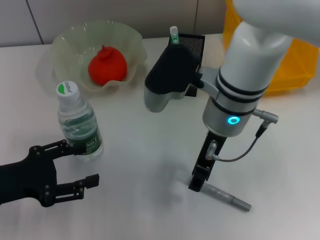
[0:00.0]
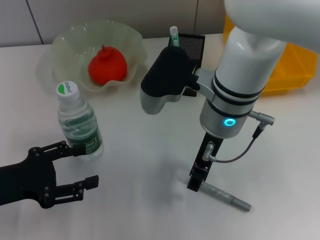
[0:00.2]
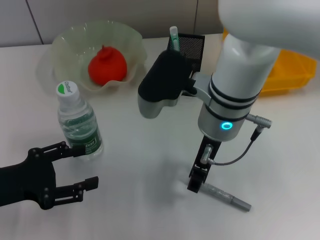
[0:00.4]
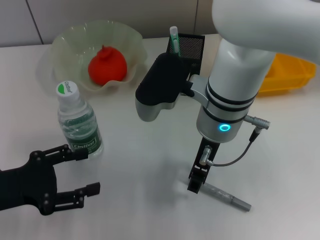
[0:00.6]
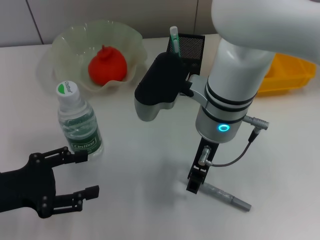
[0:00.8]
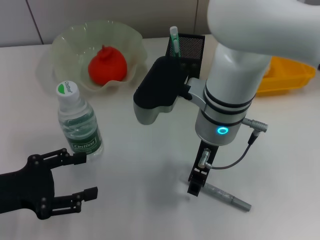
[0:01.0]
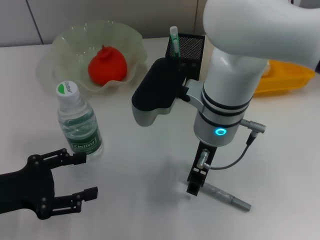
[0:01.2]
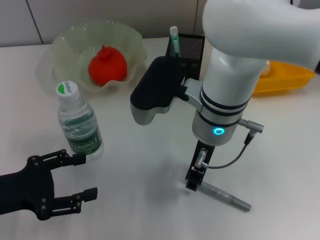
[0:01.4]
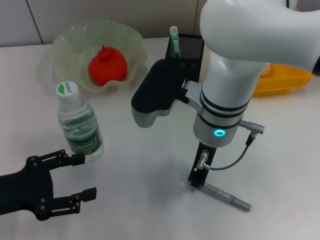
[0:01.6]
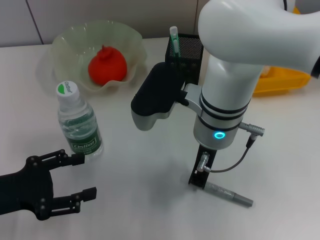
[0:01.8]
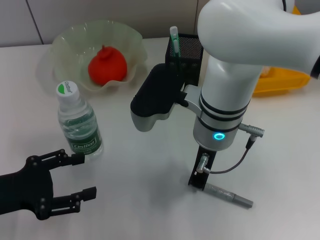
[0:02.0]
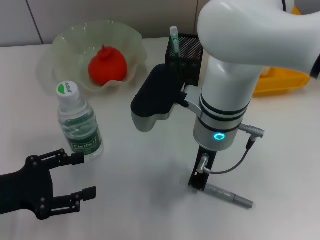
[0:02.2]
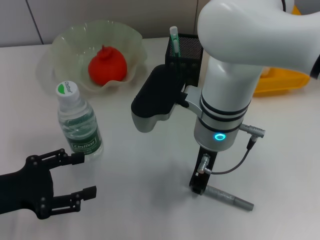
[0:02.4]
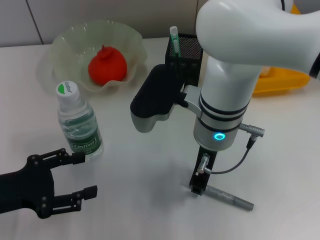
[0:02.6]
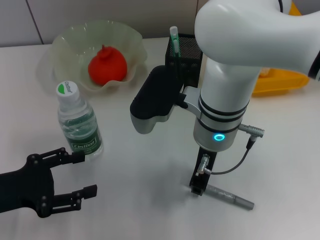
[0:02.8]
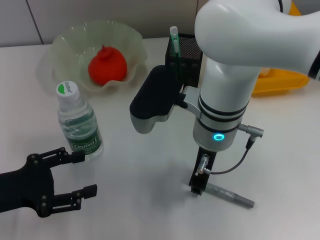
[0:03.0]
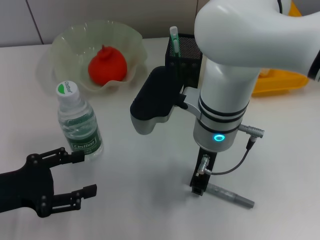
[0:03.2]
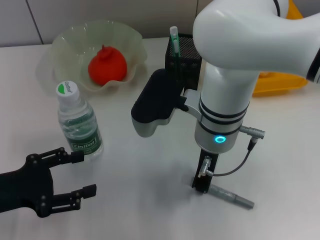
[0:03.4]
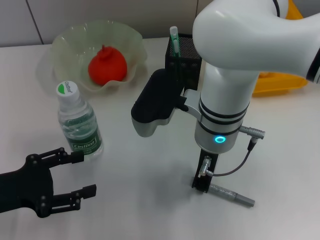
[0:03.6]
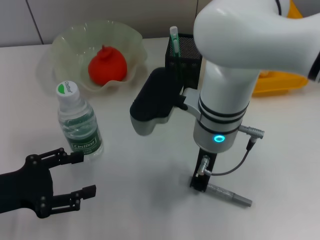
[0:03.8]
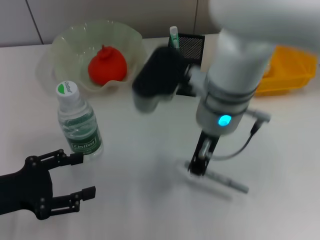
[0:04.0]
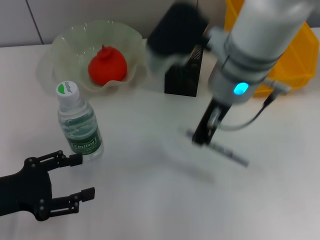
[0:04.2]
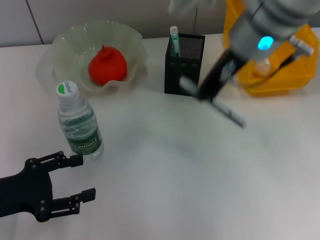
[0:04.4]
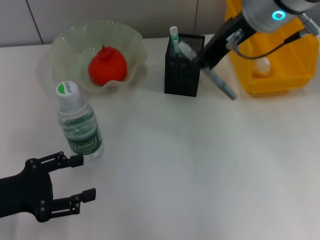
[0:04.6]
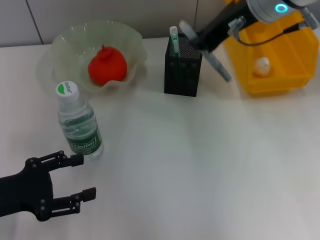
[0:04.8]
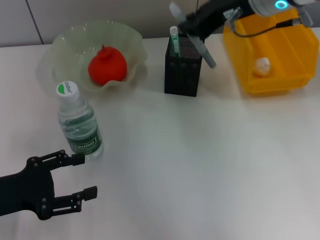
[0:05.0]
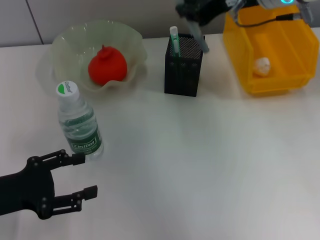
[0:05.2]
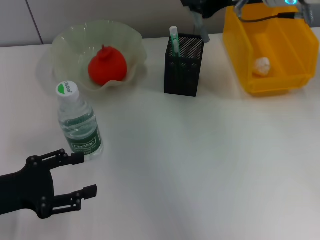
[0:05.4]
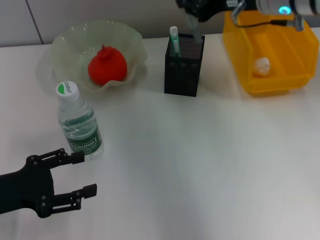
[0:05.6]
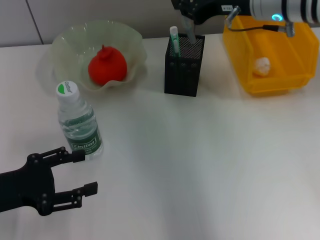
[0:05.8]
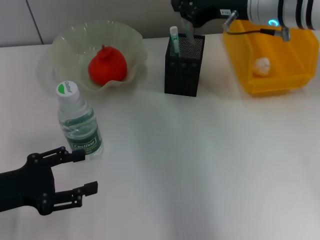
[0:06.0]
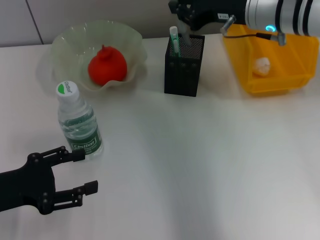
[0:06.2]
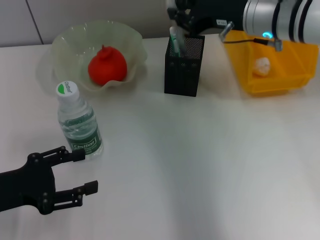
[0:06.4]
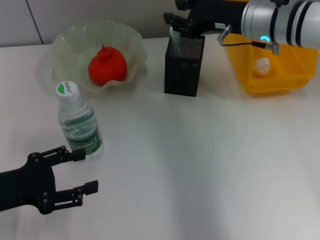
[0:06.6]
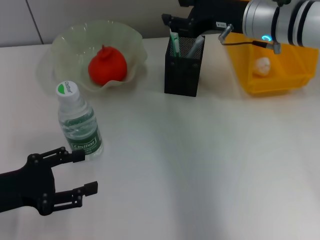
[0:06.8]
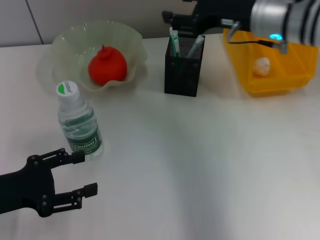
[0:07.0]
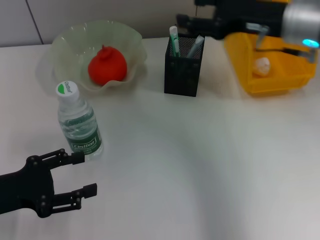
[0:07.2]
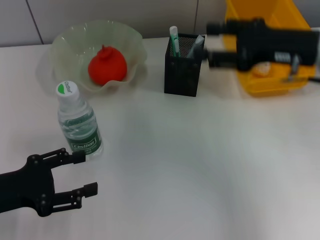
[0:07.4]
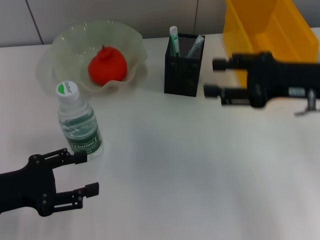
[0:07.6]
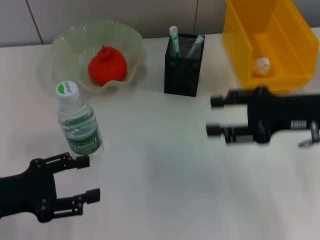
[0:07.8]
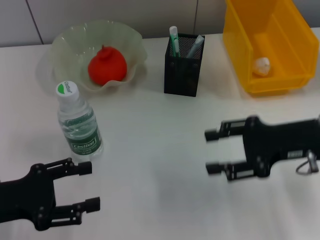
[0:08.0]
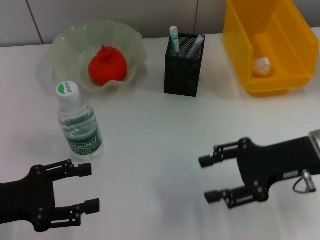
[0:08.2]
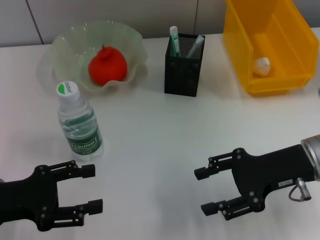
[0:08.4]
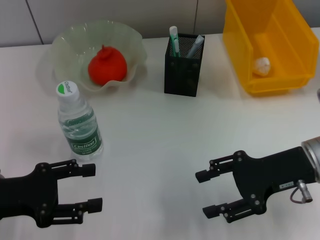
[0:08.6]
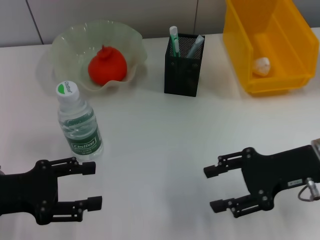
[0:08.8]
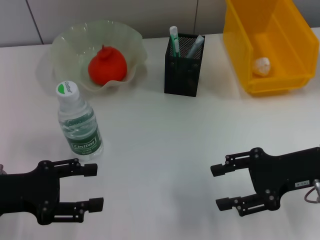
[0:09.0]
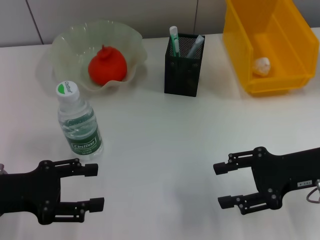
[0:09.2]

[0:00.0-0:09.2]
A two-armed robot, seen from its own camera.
Step, 0:00.0 to 0:03.4: Grab the gray glue with the right hand.
Step, 0:03.8 to 0:06.8: Place the gray glue into the pen holder with the right hand.
0:01.6 to 0:03.0: Neither gripper changes place.
0:03.0 to 0:04.6: The right gripper goes about 15 cm upward, to the right and forward.
0:04.6 to 0:06.2: The right gripper goes some 10 cm downward.
0:06.2 to 0:07.6: The right gripper is displaced backward and to the right by approximately 15 cm, and opens.
0:07.6 to 0:09.2: The right gripper travels downward by roughly 5 cm.

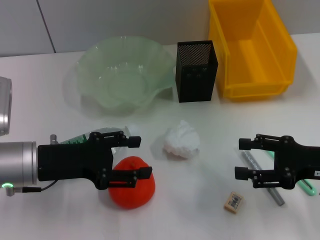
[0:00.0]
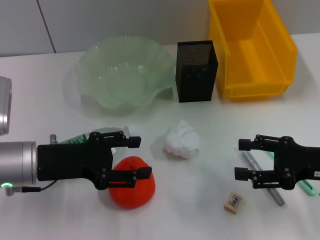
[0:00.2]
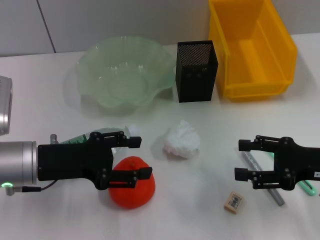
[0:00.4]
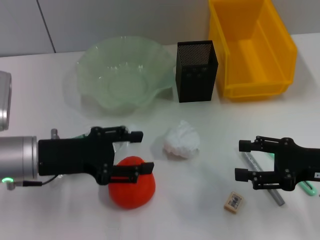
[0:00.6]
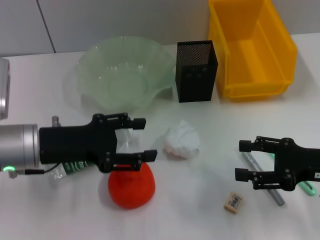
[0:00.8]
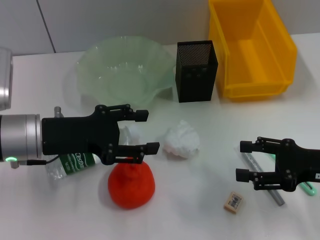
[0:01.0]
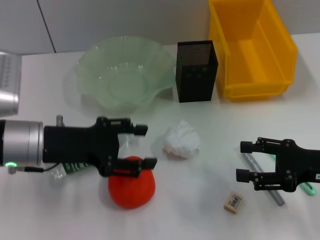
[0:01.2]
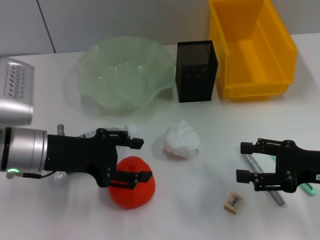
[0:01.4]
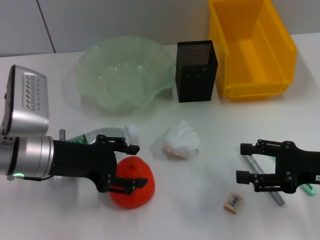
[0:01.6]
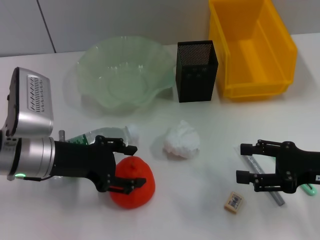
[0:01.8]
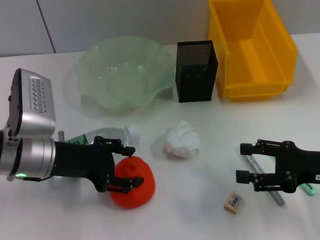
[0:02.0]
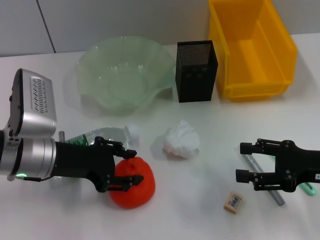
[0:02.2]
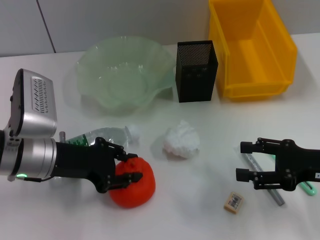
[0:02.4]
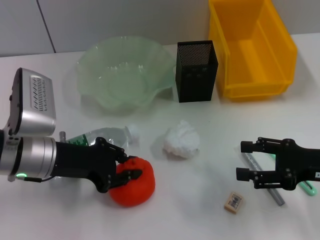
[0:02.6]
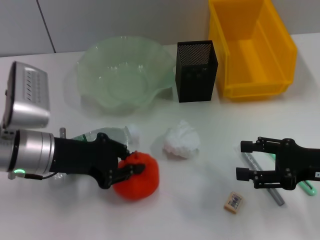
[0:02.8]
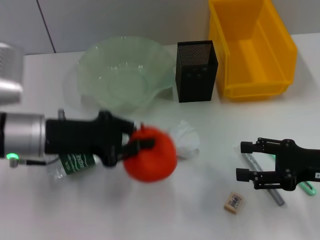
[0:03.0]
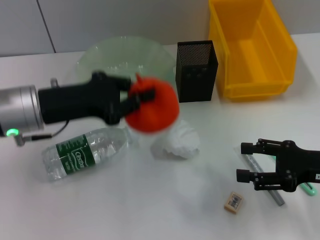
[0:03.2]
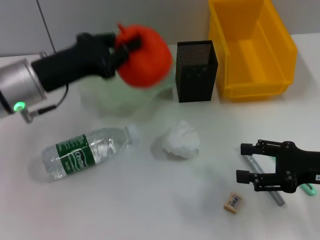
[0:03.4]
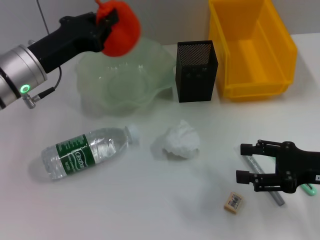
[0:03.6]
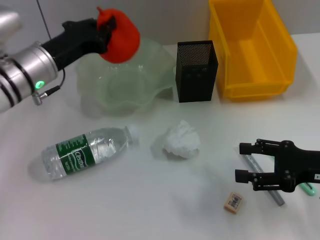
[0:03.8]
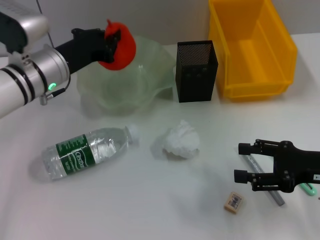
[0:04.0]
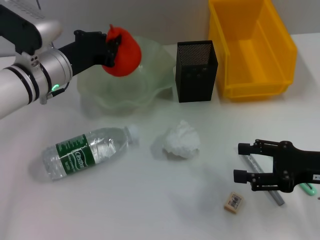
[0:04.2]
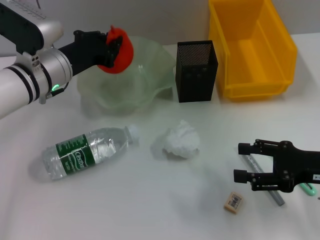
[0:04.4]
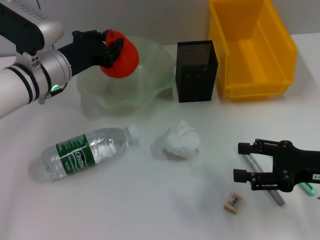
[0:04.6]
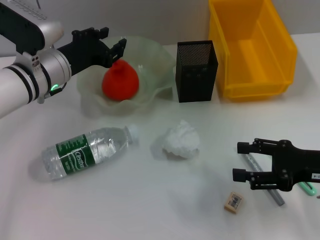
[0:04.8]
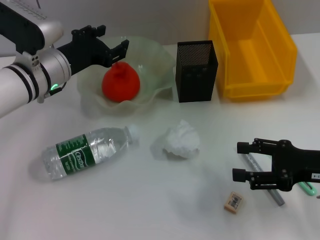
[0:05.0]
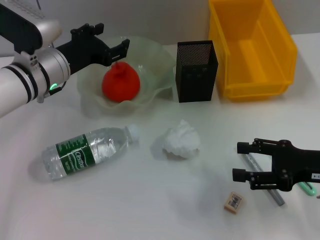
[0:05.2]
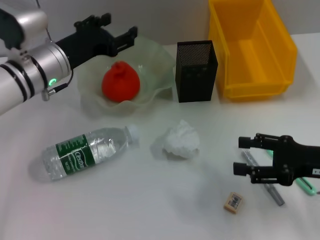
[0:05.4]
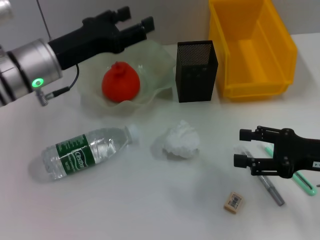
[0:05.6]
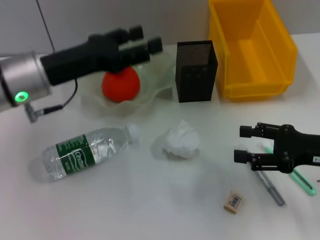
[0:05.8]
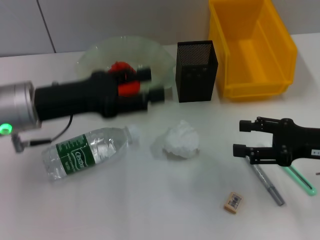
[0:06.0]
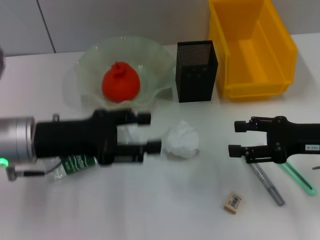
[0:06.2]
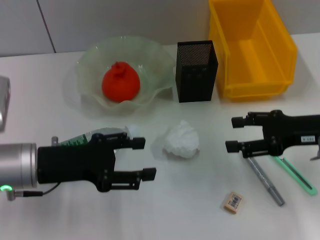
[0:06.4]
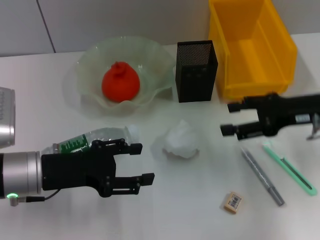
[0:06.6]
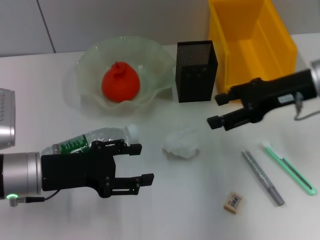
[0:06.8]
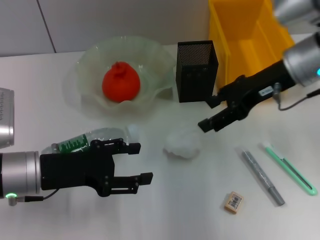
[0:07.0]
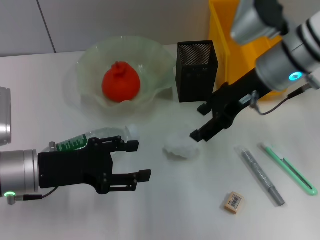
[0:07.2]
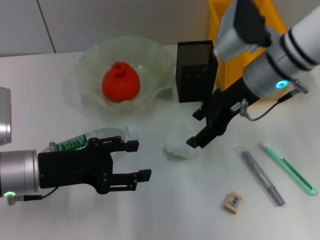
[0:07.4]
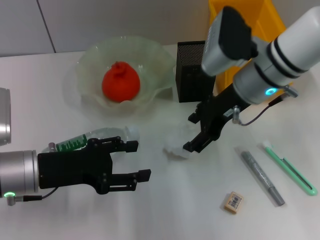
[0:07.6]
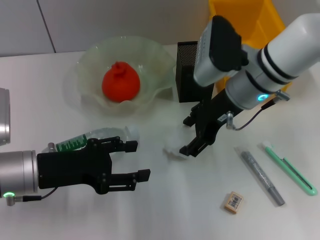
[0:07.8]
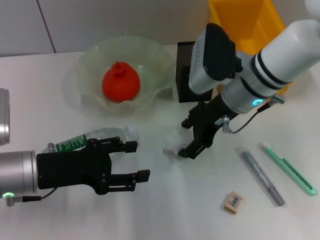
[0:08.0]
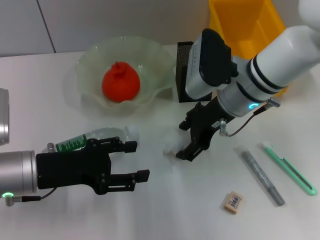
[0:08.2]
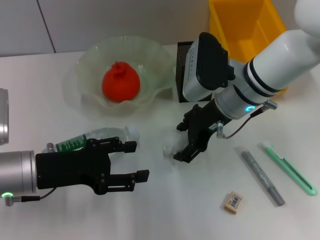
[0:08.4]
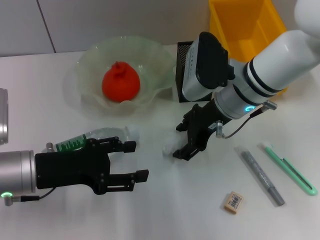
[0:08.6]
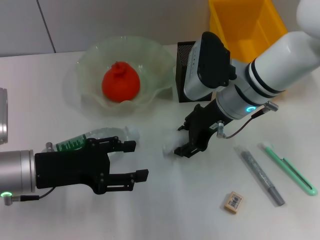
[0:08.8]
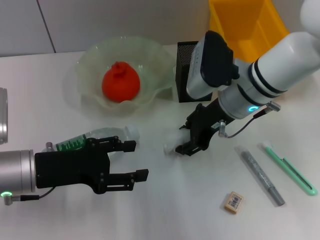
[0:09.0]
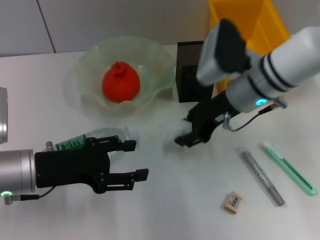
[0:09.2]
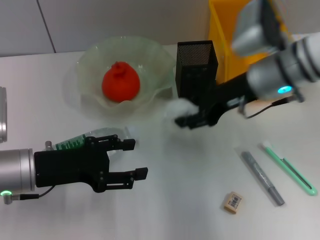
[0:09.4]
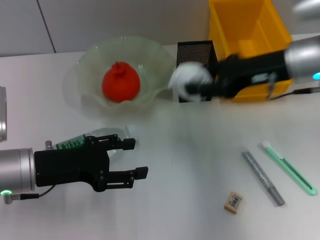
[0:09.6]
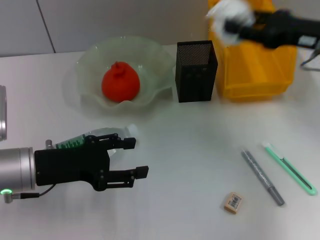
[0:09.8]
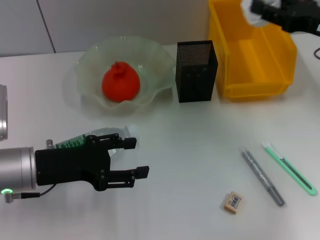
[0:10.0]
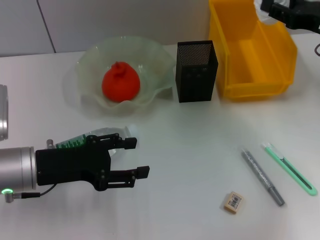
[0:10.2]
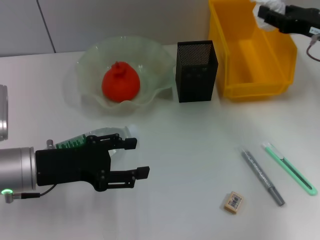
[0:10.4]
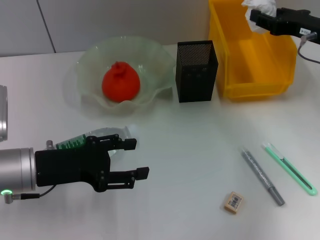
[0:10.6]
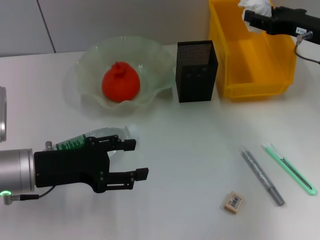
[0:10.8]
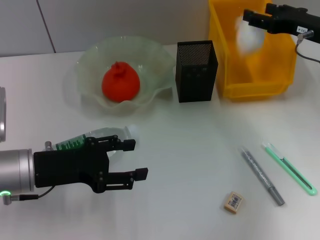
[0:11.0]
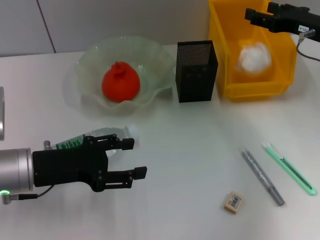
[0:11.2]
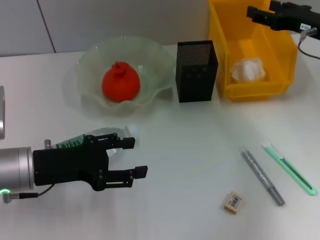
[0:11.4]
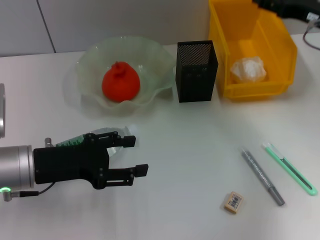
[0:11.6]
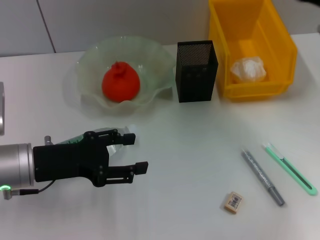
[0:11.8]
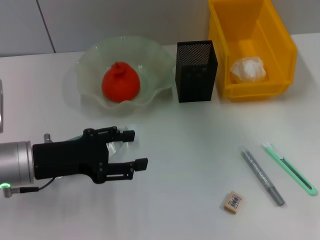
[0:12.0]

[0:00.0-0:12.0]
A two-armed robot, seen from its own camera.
Step, 0:00.0 to 0:02.4: Grab the orange with the left hand.
Step, 0:02.6 to 0:04.8: Place the orange into the fruit bowl with the left hand.
Step, 0:05.0 to 0:08.8: Grab the paper ball with the right hand.
Step, 0:09.0 to 0:11.2: Place the paper ball into the trash can with the right hand.
0:00.0 to 0:01.6: The grippers move only a little.
0:01.6 to 0:03.0: The left gripper closes its fingers.
0:03.0 to 0:04.4: The left gripper travels forward by some 10 cm.
0:04.4 to 0:06.0: The left gripper moves backward, approximately 10 cm, and opens.
0:06.0 to 0:07.6: The left gripper moves downward, some 5 cm. Meanwhile the right gripper moves to the left, forward and upward, some 20 cm.
0:07.6 to 0:09.0: The grippers stay close to where they were, moving slightly.
0:09.0 to 0:10.4: The right gripper goes some 20 cm to the right.
0:10.4 to 0:12.0: The right gripper travels backward by approximately 5 cm, and opens.

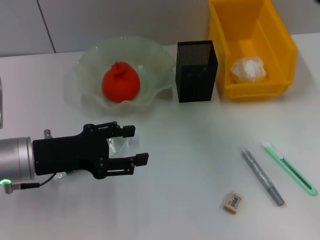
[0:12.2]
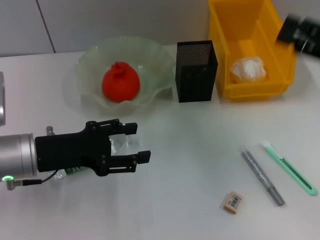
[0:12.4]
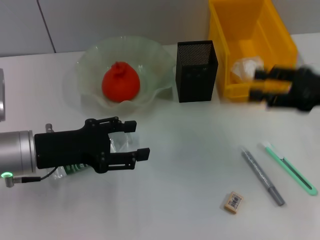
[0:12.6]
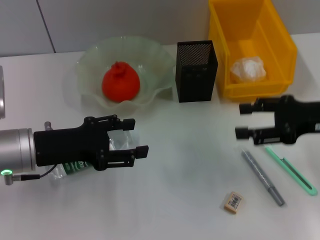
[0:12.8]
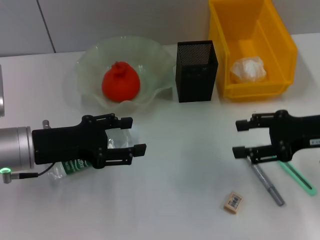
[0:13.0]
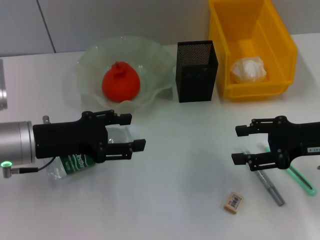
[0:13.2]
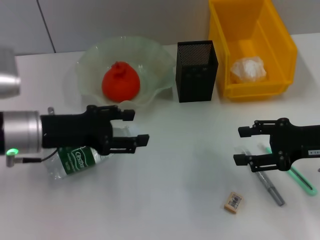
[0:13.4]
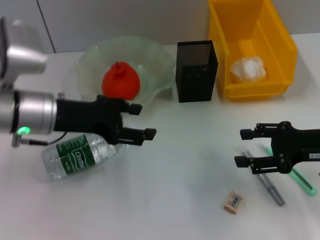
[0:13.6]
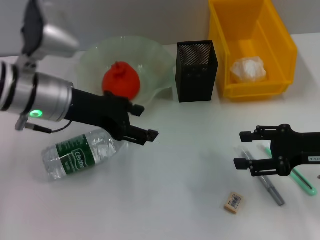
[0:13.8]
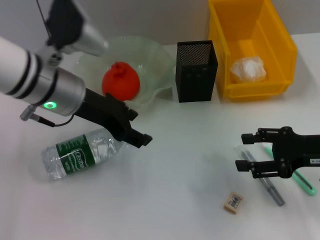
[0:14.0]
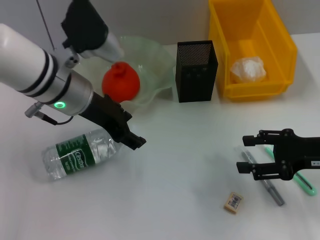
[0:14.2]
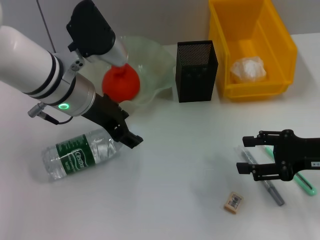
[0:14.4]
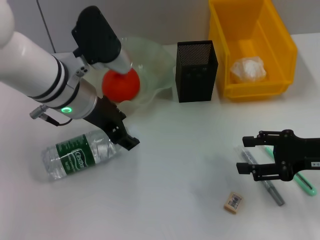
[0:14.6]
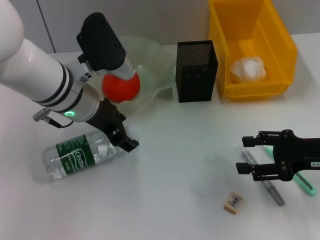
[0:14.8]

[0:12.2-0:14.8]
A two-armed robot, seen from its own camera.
0:12.2 to 0:13.4: The right gripper shifts roughly 5 cm downward.
0:13.4 to 0:14.8: The left gripper heads to the right, covering approximately 10 cm.
